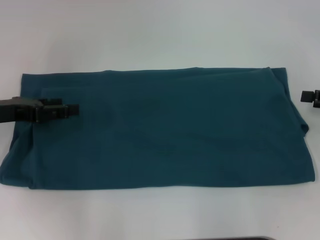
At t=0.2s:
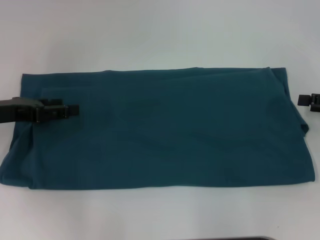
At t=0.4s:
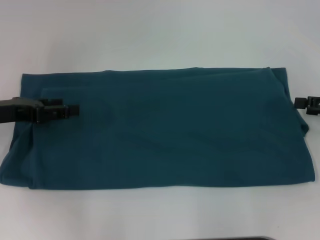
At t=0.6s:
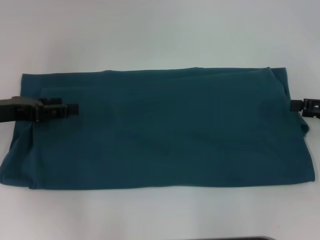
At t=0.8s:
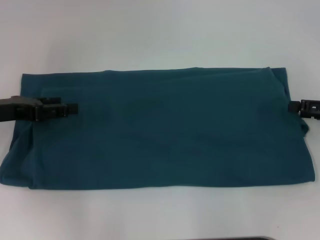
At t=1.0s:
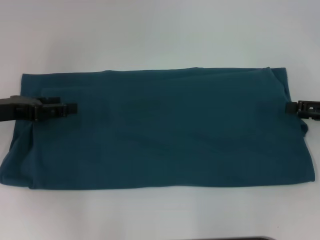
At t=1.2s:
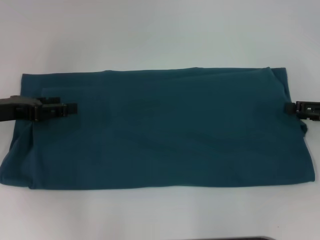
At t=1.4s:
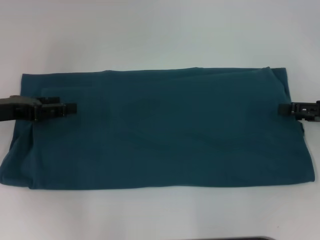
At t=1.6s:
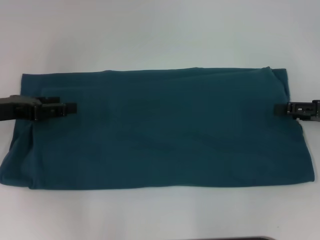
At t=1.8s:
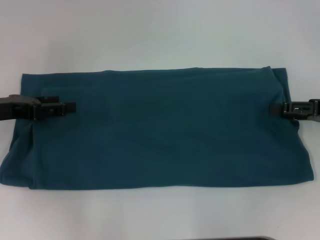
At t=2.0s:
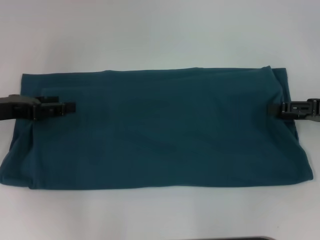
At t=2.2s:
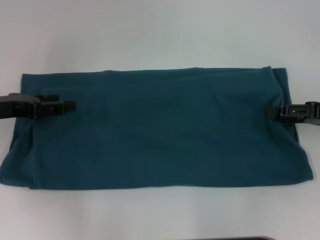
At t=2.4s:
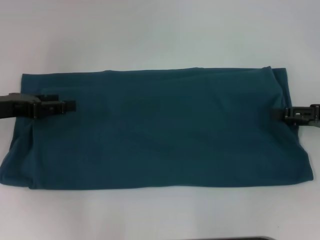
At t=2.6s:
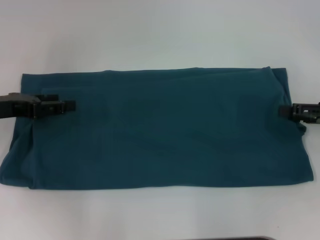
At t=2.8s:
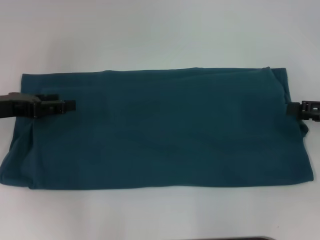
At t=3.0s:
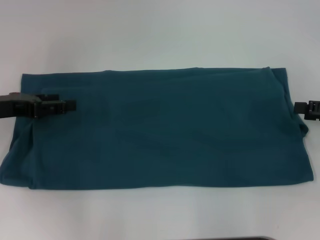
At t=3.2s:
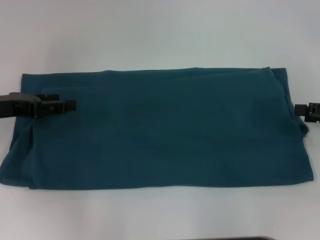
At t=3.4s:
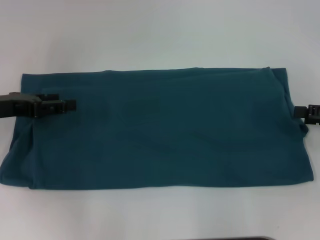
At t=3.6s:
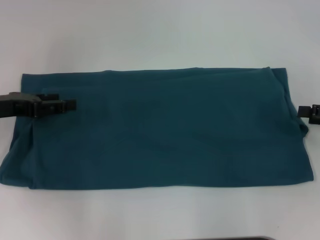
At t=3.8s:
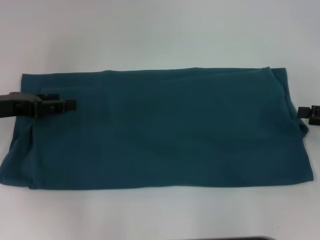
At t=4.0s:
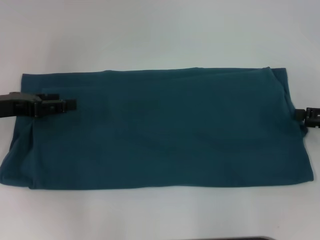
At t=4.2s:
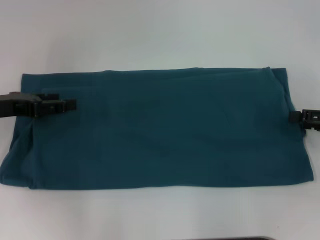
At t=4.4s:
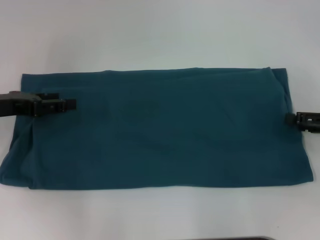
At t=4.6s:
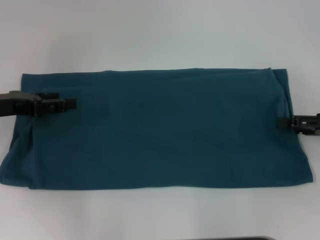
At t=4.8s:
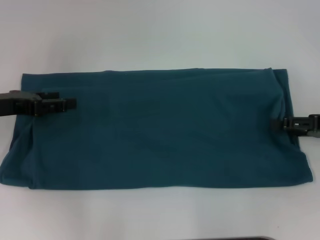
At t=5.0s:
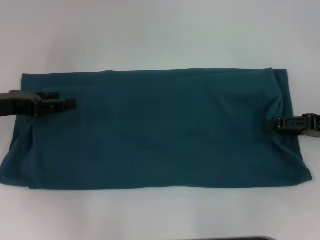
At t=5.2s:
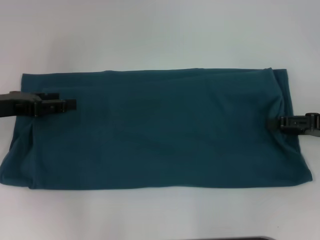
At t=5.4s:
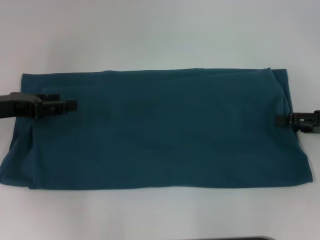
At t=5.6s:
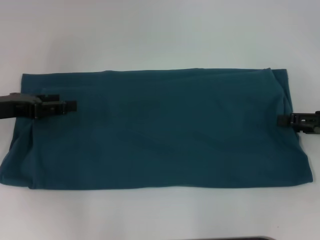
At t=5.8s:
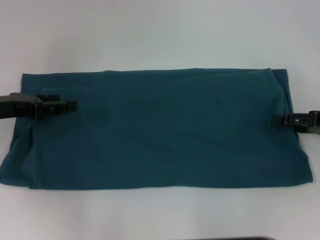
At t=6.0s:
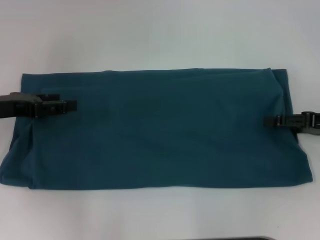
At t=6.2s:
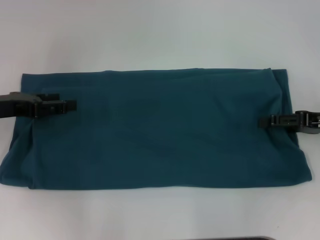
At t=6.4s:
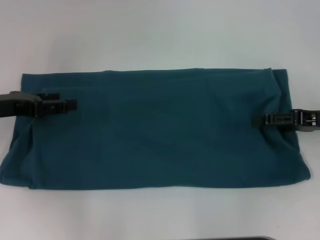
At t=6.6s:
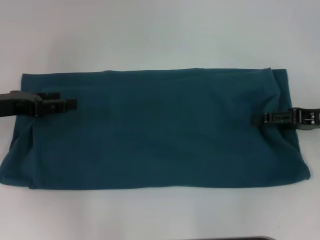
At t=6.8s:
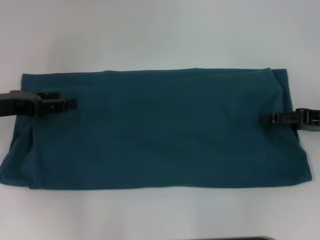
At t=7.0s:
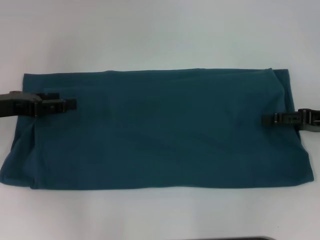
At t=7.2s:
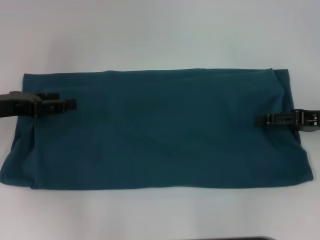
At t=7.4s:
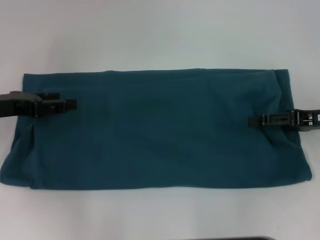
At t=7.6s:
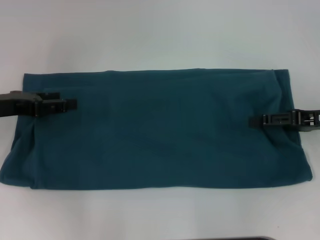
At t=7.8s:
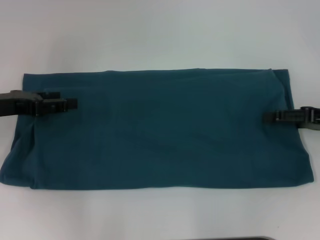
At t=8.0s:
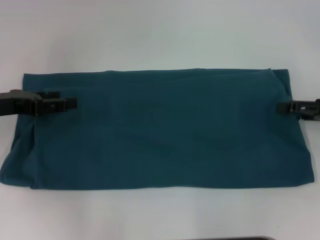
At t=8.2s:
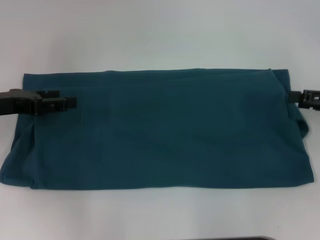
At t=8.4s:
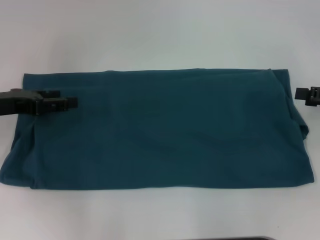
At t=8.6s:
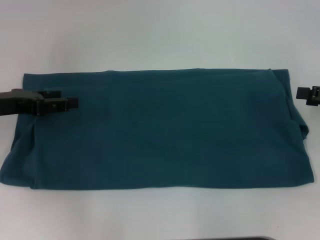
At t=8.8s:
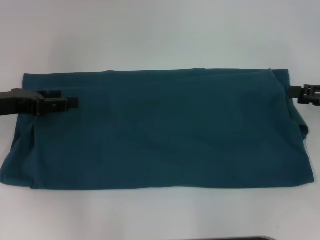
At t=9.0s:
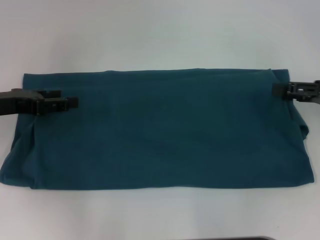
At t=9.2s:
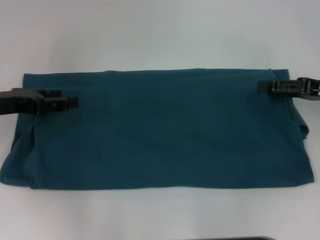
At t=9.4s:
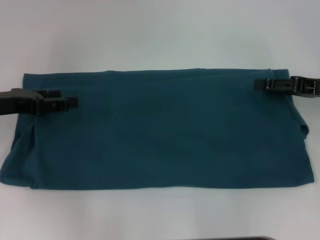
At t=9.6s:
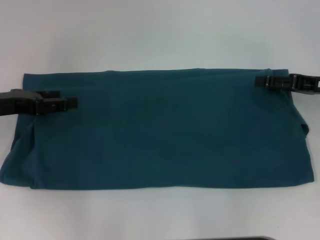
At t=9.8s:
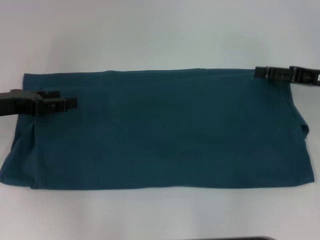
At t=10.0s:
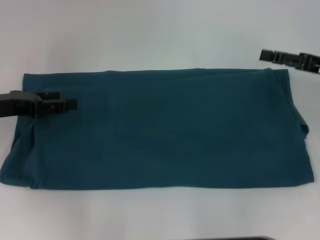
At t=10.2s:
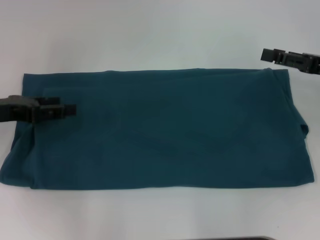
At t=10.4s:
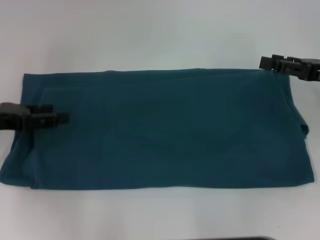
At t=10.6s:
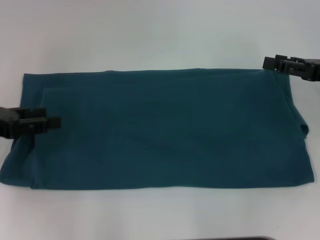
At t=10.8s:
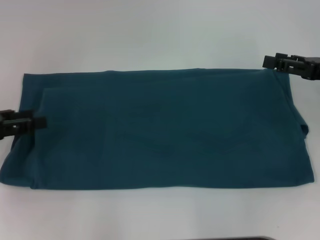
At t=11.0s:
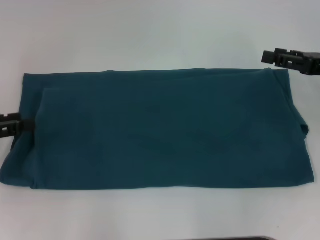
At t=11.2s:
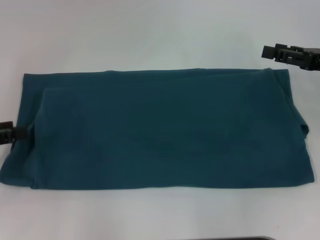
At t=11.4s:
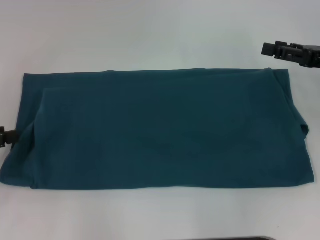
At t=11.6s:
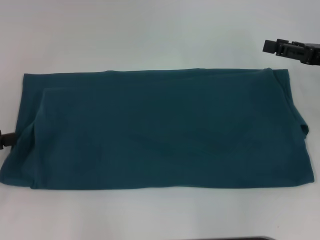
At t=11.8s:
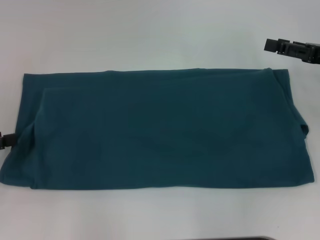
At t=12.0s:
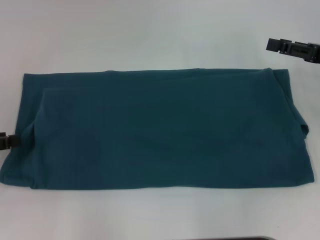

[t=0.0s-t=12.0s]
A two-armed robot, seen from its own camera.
t=0.0s to t=6.0s: The grippers stay close to where they were, moving slightly.
t=6.0s to t=7.6s: The grippers move only a little.
t=10.4s to t=12.0s: The left gripper goes about 5 cm to the left.

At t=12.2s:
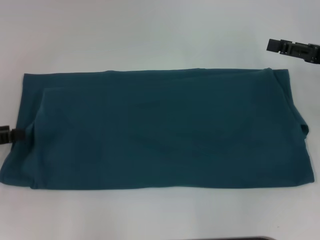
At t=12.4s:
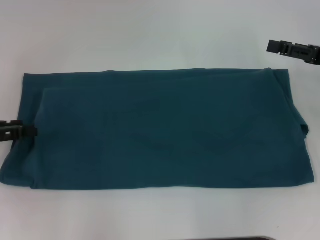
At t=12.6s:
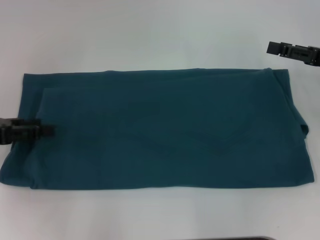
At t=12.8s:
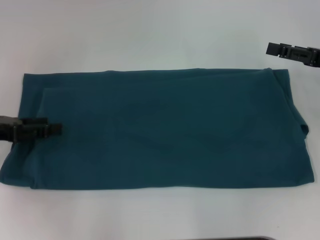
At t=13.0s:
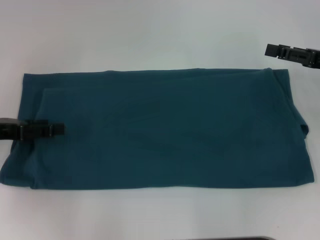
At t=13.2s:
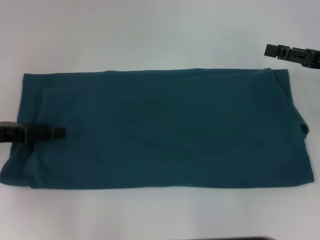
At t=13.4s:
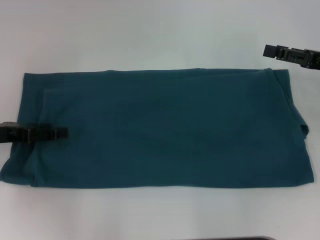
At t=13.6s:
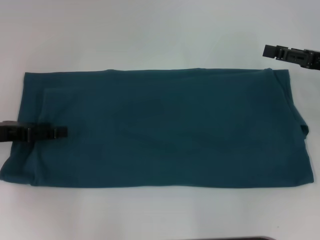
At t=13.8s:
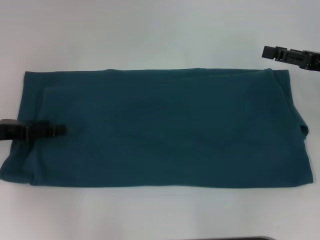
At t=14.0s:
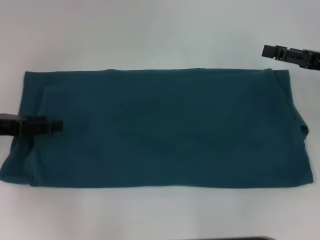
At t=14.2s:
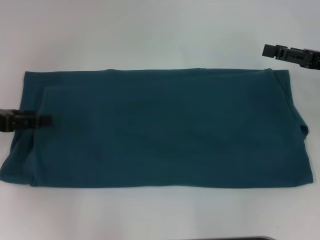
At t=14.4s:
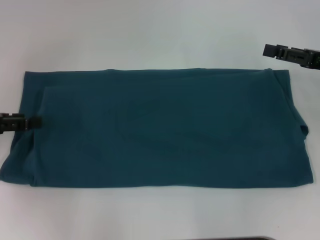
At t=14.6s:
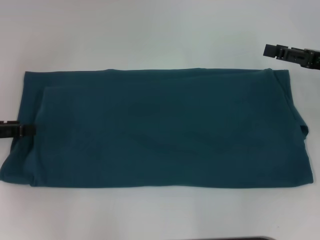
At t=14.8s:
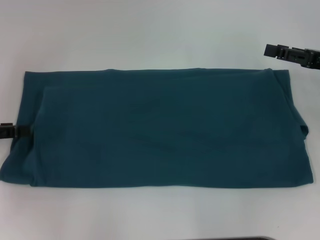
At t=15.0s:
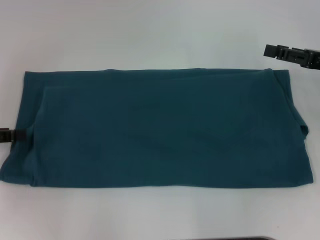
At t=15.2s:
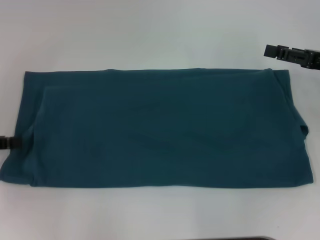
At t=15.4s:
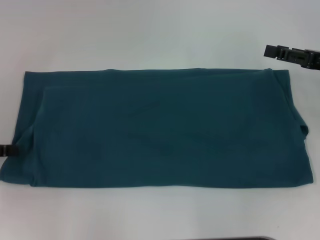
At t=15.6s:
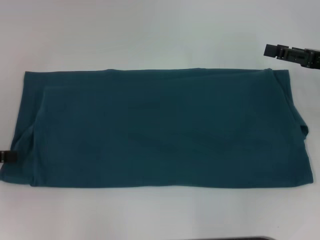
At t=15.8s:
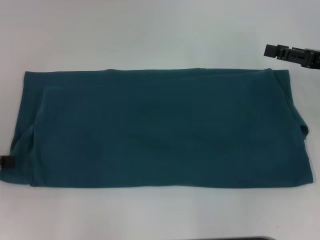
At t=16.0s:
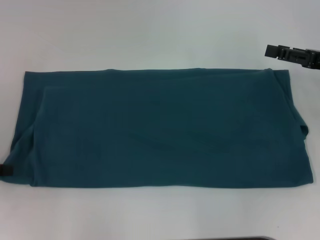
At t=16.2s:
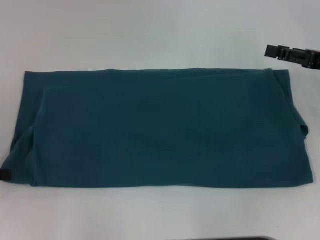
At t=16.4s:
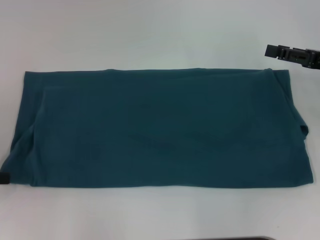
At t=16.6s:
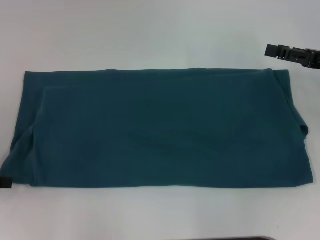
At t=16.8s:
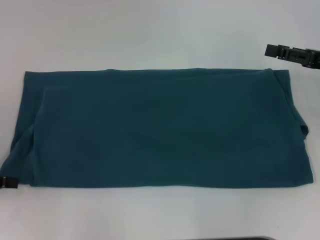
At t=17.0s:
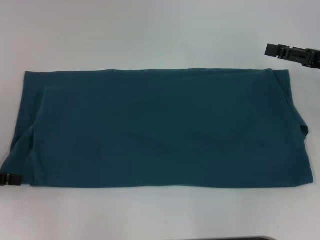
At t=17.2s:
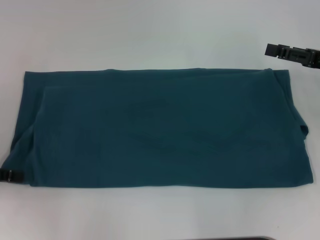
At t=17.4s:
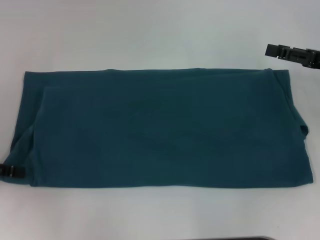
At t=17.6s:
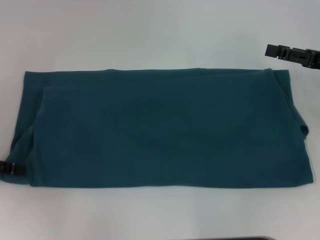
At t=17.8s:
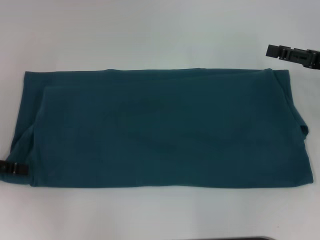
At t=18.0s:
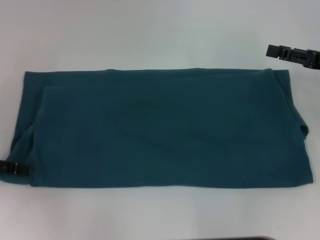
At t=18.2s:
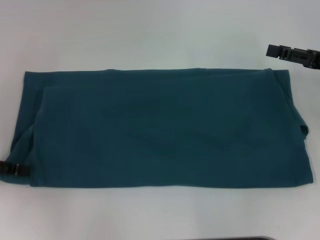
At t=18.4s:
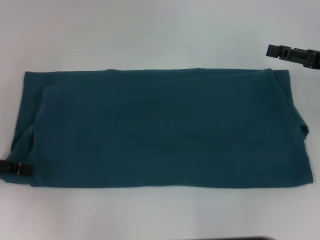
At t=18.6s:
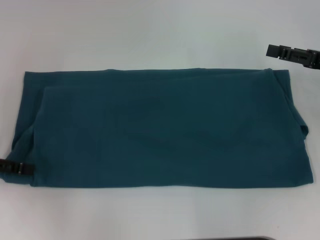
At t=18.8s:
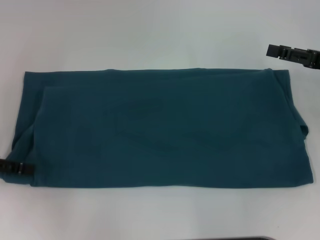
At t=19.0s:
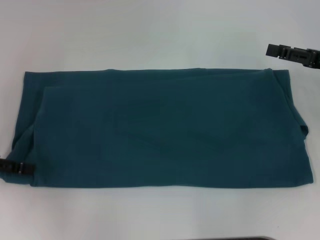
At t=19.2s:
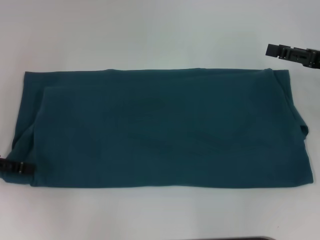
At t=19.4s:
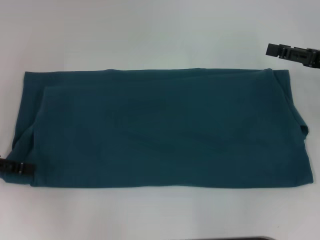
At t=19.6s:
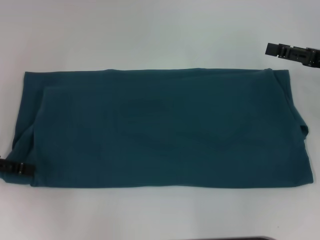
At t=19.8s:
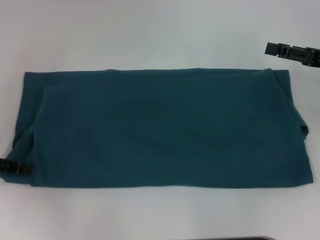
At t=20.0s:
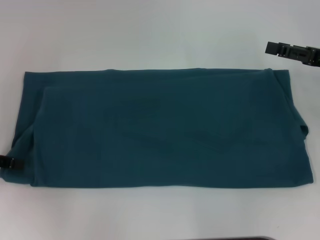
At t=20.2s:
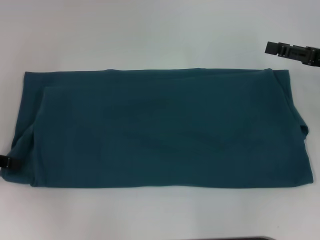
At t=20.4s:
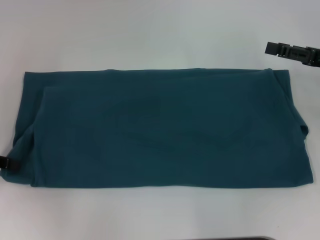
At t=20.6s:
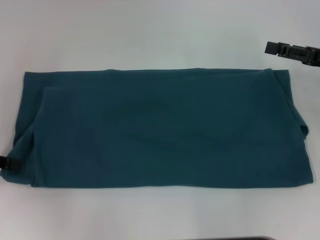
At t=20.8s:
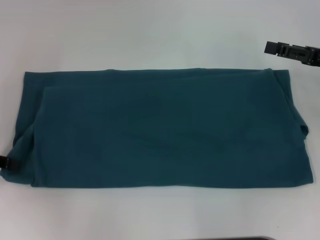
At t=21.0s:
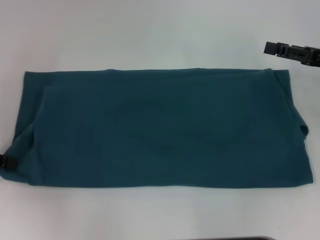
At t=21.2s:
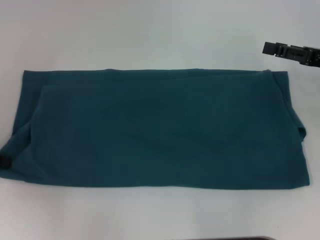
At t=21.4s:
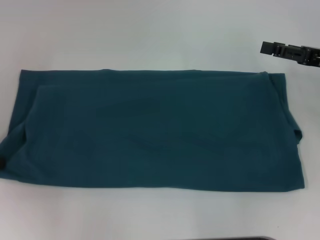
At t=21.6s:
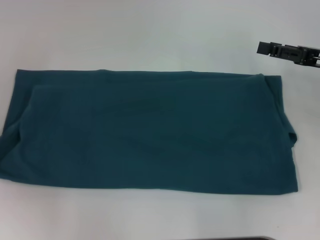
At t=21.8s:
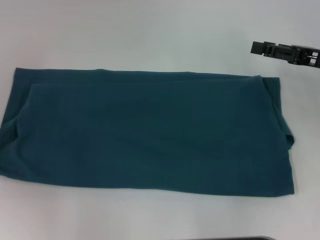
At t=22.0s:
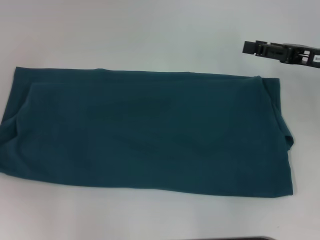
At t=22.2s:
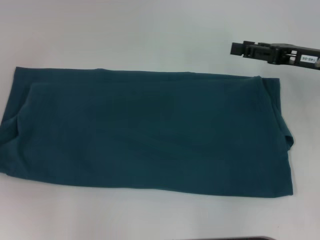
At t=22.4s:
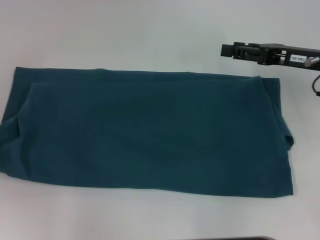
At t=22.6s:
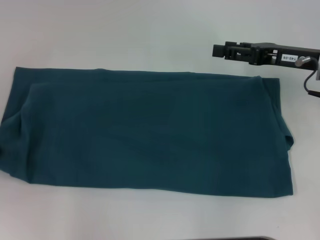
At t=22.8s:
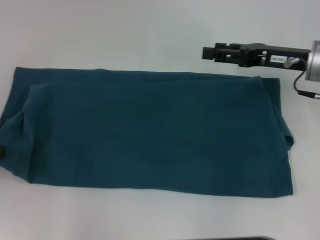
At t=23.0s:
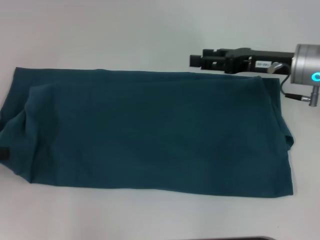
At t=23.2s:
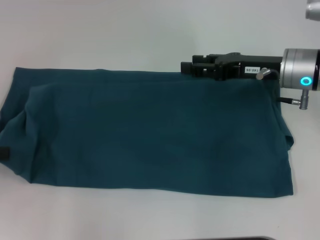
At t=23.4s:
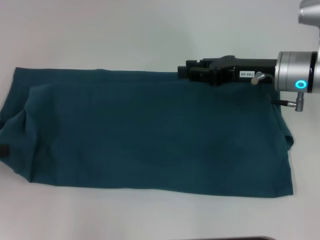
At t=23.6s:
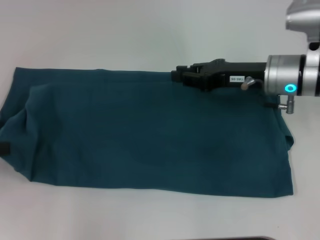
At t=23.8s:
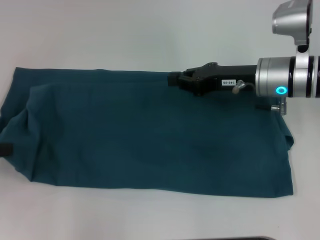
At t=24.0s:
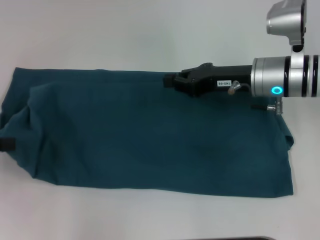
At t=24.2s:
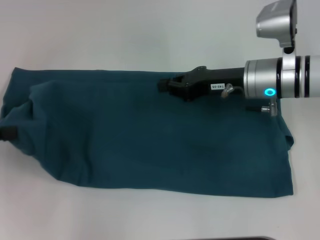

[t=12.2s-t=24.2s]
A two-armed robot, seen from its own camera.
t=12.2s to t=13.8s: The left gripper shifts some 5 cm to the right.
t=13.8s to t=15.2s: The left gripper goes about 5 cm to the left.
t=18.2s to t=19.8s: Both grippers stay put.
t=19.8s to t=21.2s: The left gripper closes up.
t=21.2s to t=22.6s: The right gripper goes roughly 5 cm to the left.
t=22.6s to t=24.2s: The right gripper shifts approximately 10 cm to the left, and closes its fingers.
